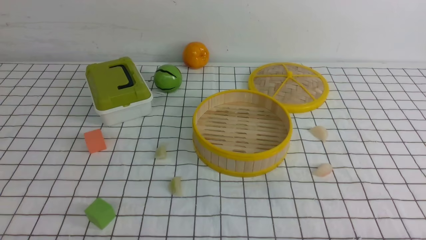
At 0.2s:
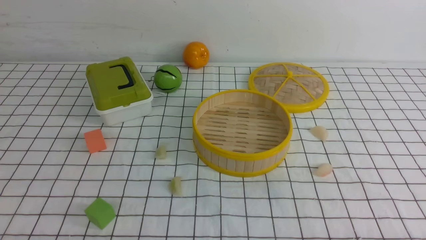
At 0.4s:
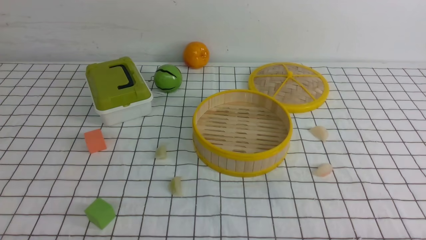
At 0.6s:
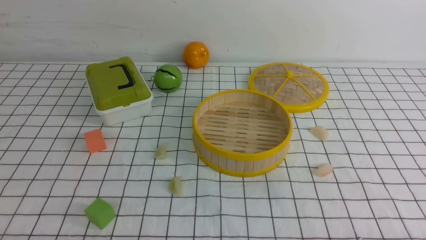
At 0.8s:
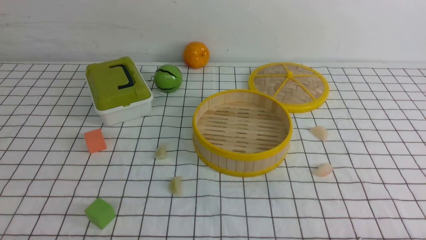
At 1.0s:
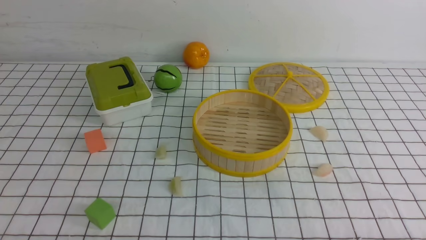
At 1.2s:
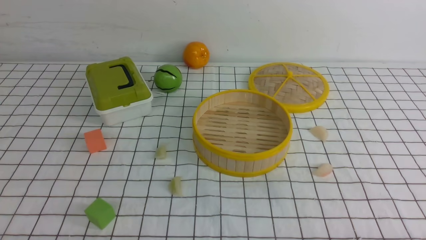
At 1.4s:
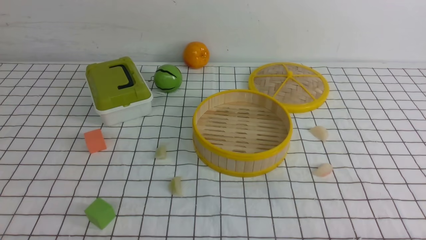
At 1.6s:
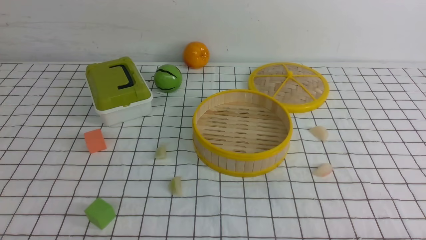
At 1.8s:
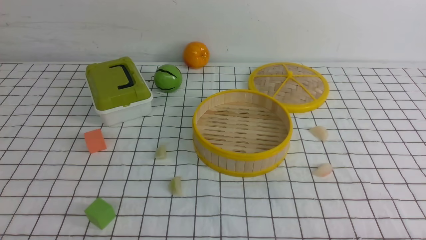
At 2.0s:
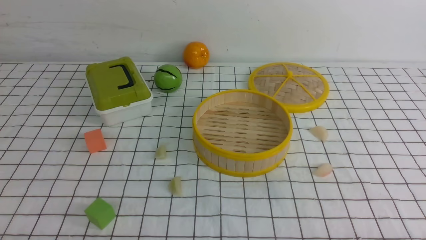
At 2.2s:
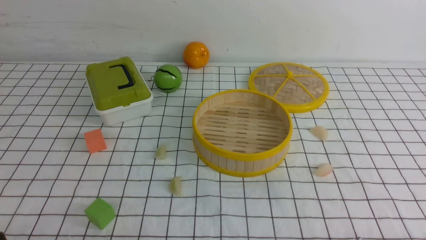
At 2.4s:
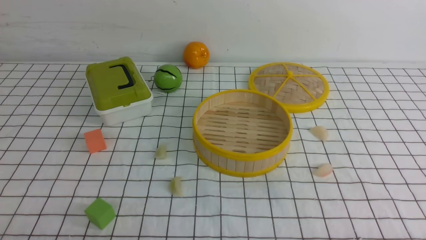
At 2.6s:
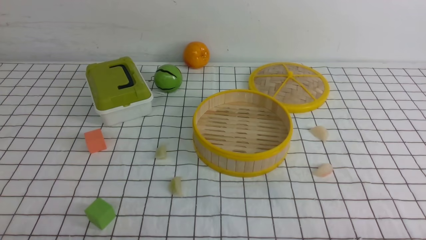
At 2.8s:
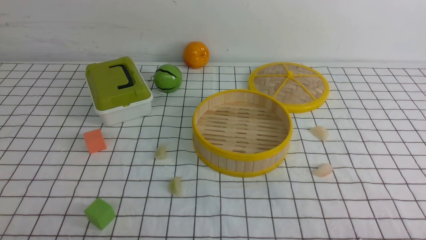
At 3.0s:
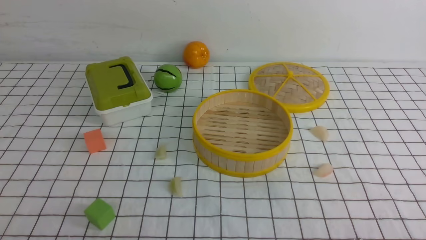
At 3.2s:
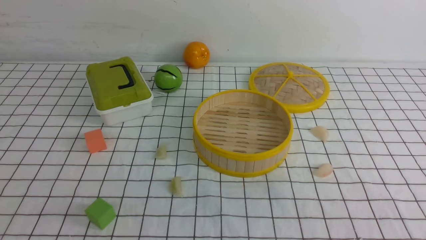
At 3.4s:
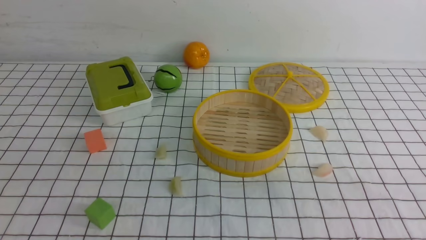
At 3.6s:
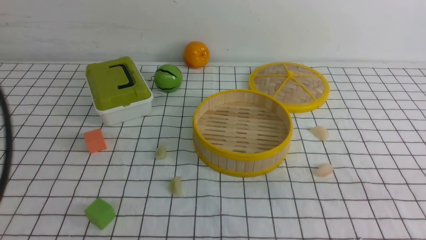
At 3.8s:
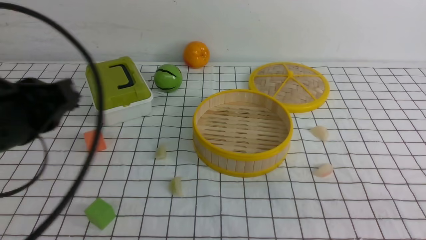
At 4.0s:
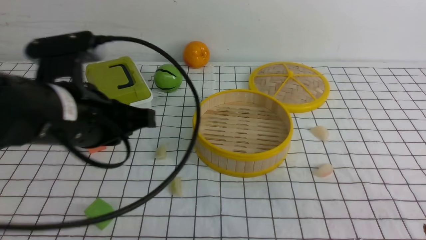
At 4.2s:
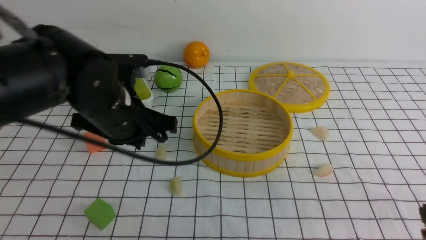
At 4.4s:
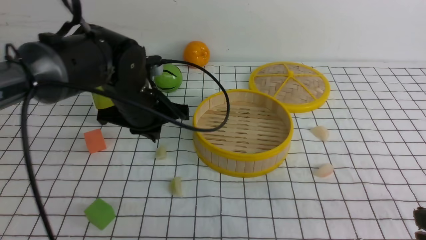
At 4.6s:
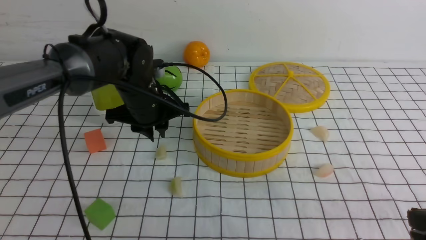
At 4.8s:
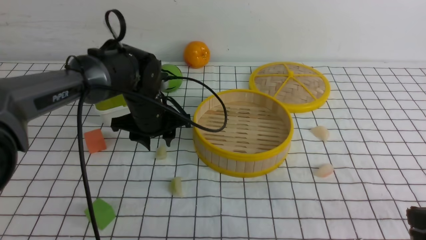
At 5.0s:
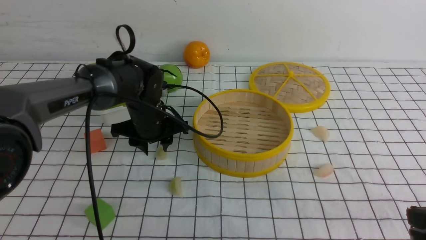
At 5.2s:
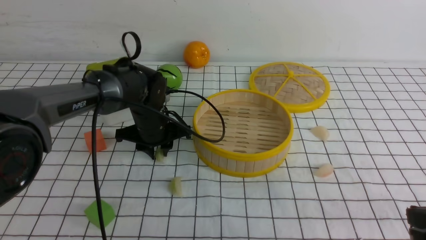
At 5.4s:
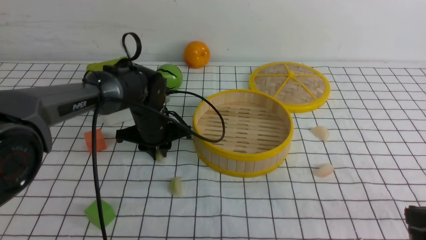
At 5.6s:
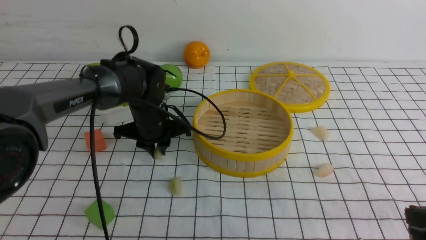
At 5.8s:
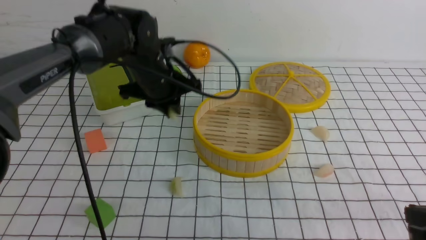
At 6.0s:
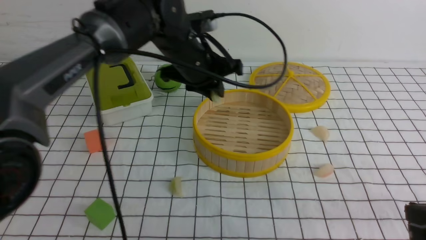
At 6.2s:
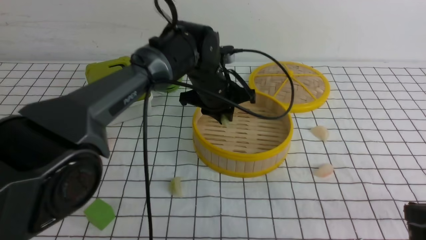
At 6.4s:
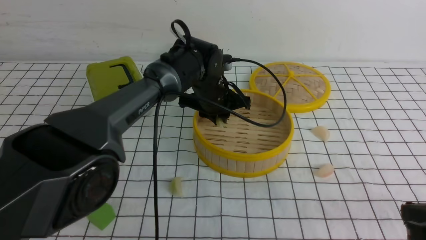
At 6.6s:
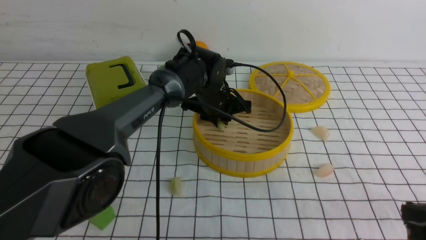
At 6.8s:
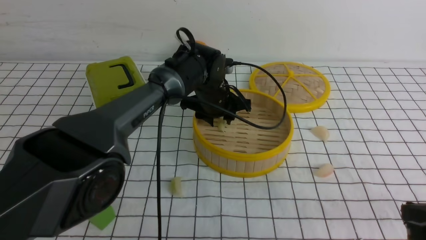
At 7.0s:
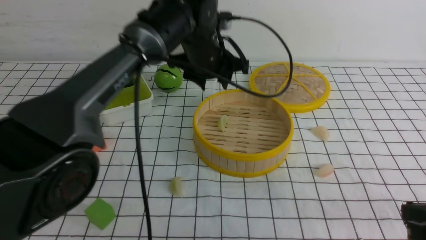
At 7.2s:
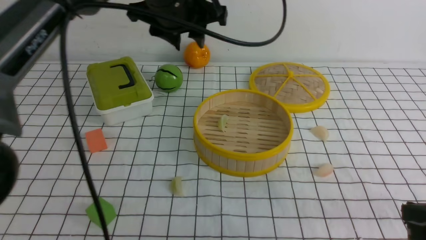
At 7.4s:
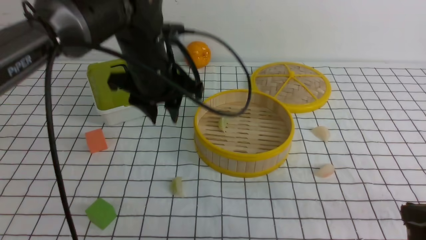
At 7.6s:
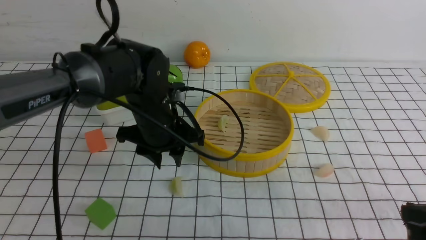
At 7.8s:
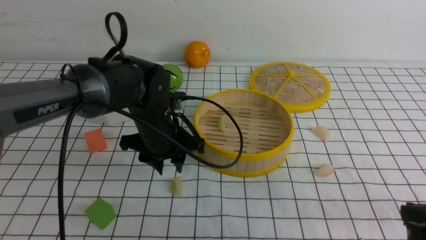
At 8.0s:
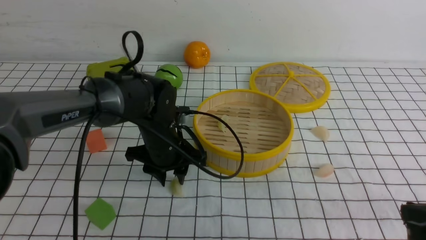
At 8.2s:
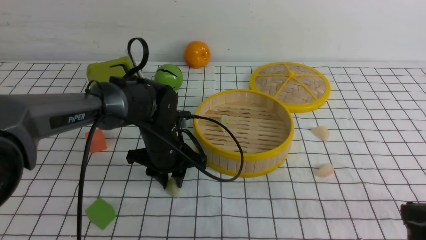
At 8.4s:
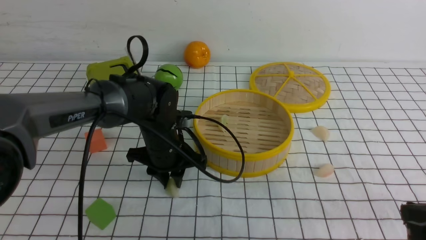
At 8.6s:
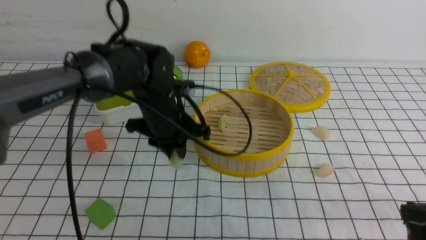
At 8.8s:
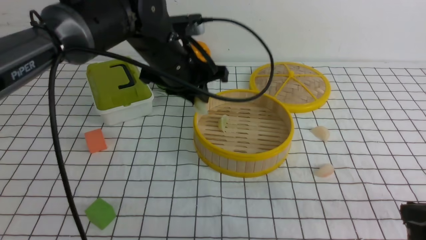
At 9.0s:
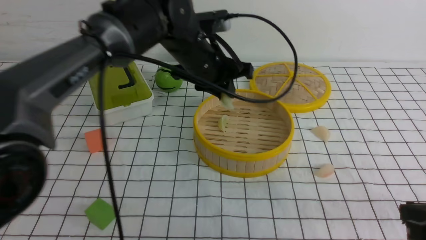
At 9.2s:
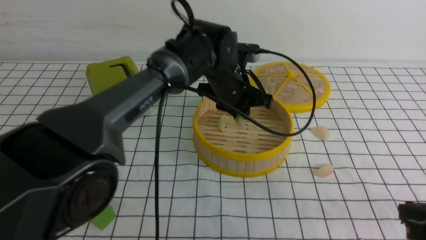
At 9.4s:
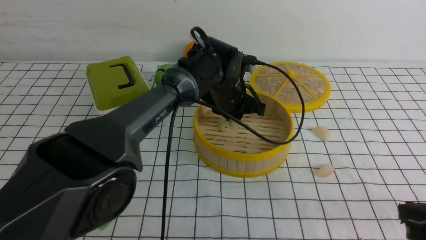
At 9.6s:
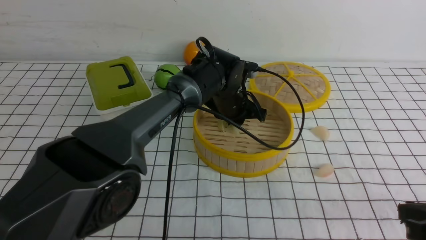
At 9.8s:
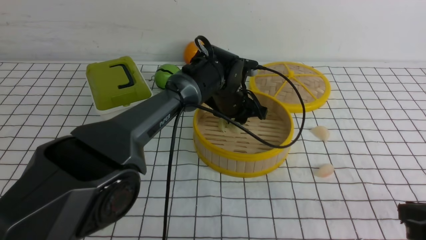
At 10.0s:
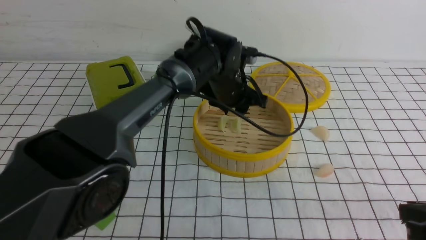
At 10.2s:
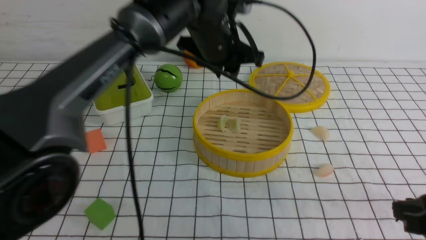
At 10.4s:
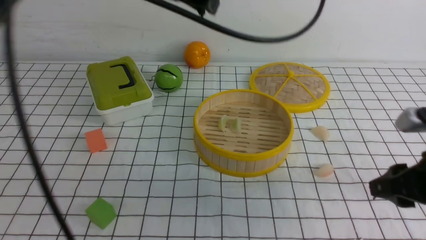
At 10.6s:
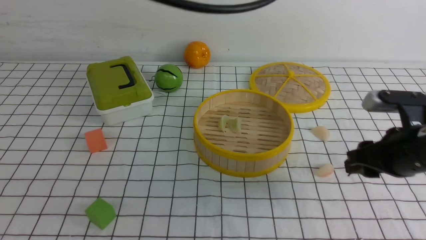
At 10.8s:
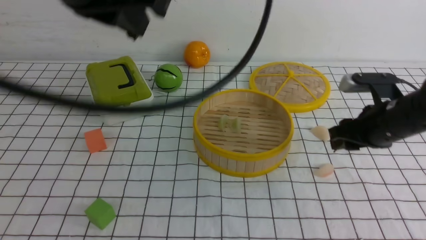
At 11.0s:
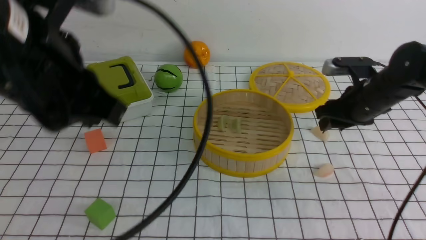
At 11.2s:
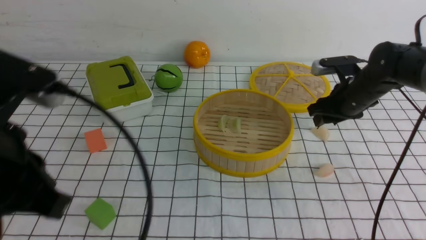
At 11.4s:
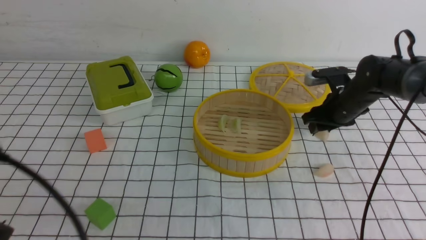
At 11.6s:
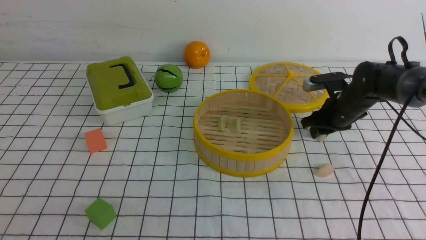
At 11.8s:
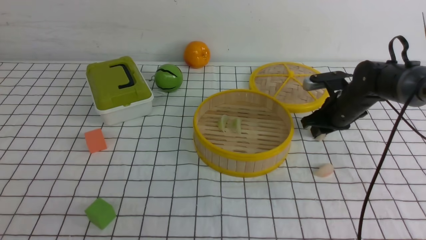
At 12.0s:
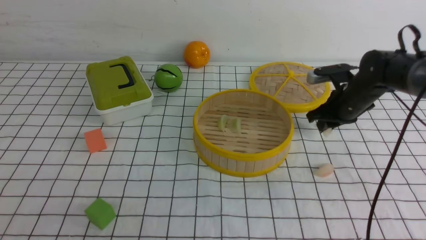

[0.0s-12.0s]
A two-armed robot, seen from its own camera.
Task of the whole recording: put the dumplings into the steamer on the table with the white tablecloth.
Step, 0.0s to 5.8s: use the left arm to grab a dumpling.
Step, 6.0s to 7.0s: use the left arm to put the dumpling into the steamer.
Step, 7.2s to 8.8s: use the left arm to grab a dumpling.
Step, 9.0s to 10.0s: use the left arm to put the dumpling into the steamer.
3.0s to 4.4s: The right gripper heads forward, covering some 10 cm, and closes, while the left gripper goes some 35 cm forward and to the right.
4.4s to 6.0s: The left gripper travels forward and to the right by roughly 10 cm, moves about 10 cm downward and comes back, and opens its fingers.
6.0s to 7.6s: The left gripper moves up and down over some 15 cm, changing direction 2 times, and opens up.
7.6s to 9.0s: The left gripper goes downward and returns, approximately 10 cm each way, and closes its fingers.
9.0s to 10.4s: The right gripper opens. Meanwhile the left gripper shifts approximately 10 cm upward, and opens, then closes once more.
10.4s to 12.0s: The right gripper goes some 30 cm forward. Meanwhile the left gripper heads backward and to the left, covering roughly 40 cm, and closes up.

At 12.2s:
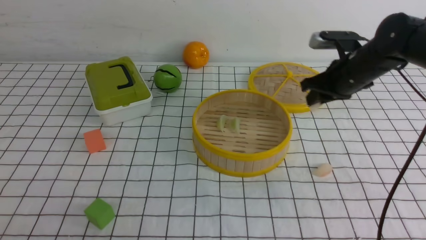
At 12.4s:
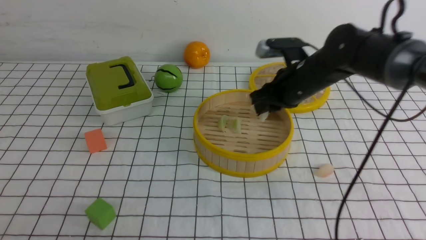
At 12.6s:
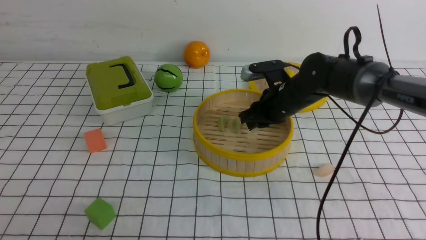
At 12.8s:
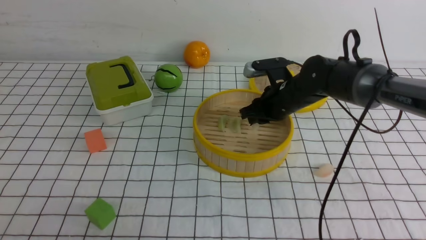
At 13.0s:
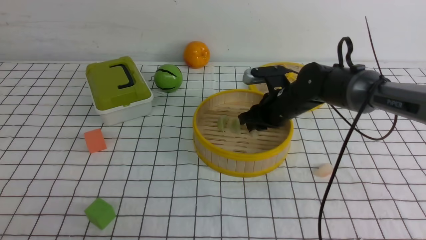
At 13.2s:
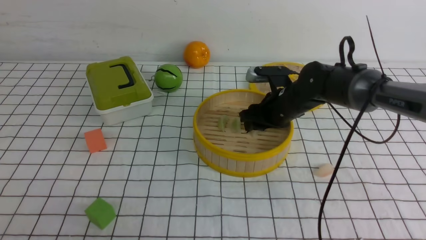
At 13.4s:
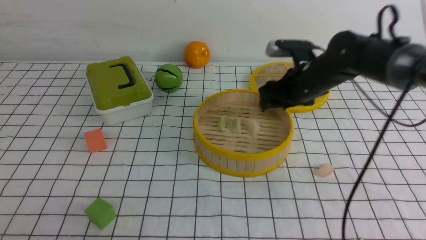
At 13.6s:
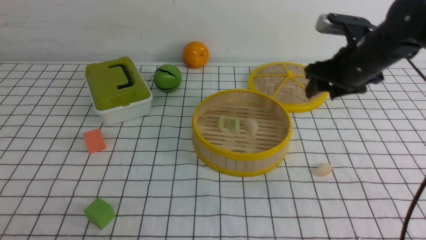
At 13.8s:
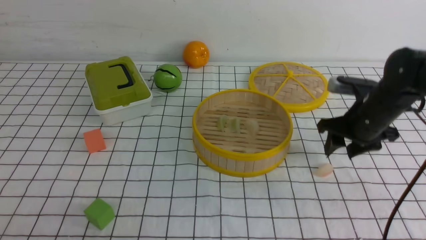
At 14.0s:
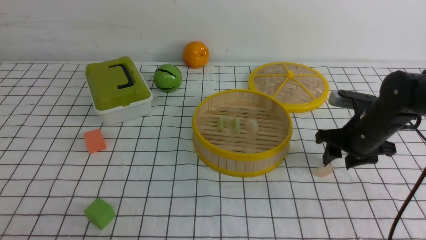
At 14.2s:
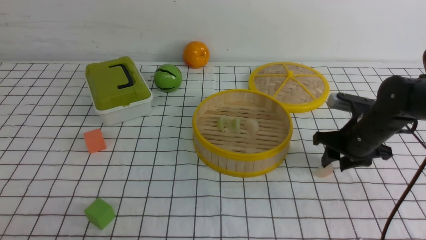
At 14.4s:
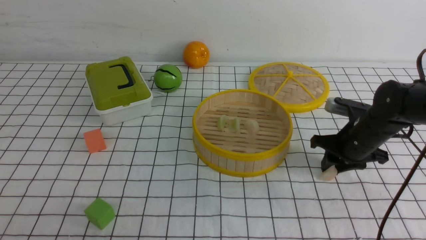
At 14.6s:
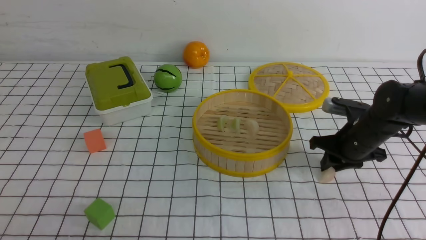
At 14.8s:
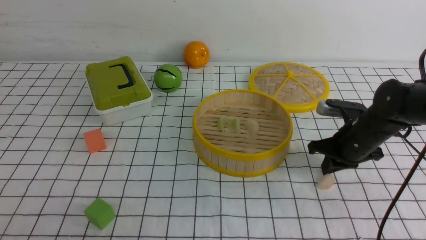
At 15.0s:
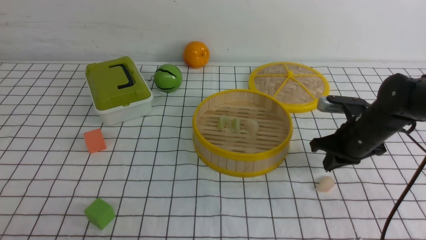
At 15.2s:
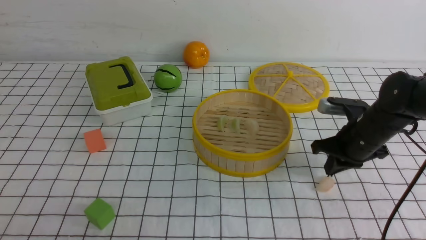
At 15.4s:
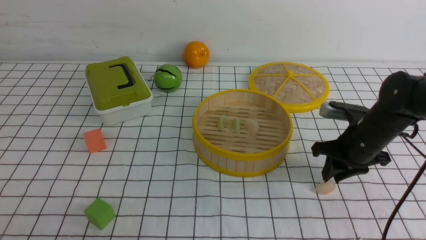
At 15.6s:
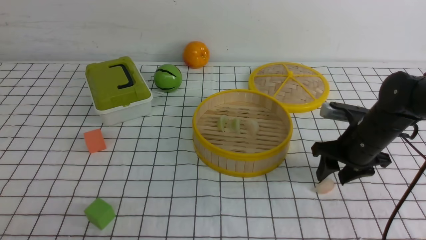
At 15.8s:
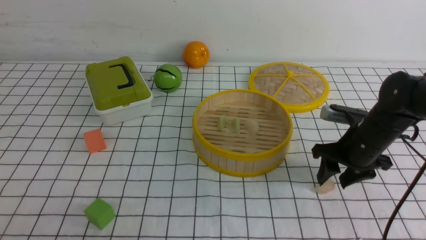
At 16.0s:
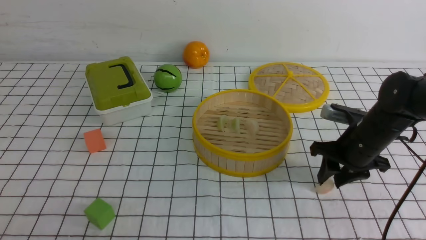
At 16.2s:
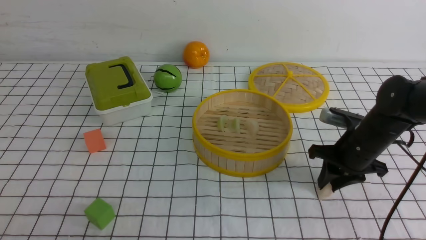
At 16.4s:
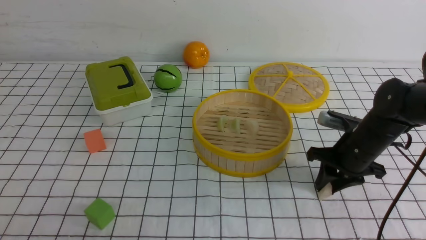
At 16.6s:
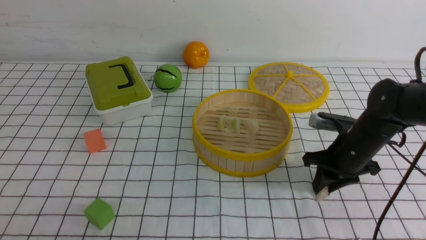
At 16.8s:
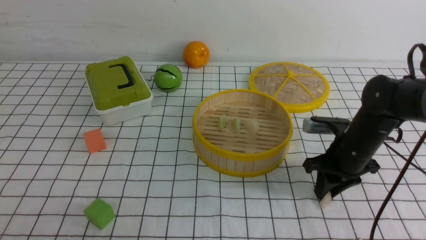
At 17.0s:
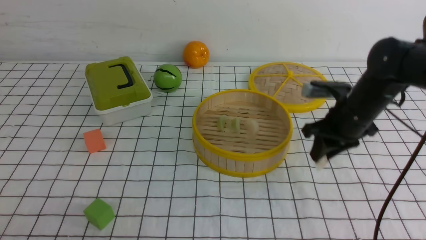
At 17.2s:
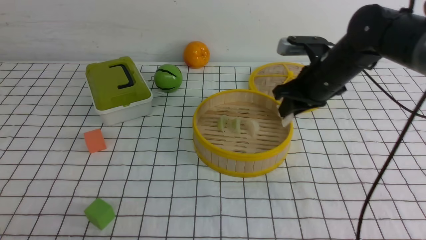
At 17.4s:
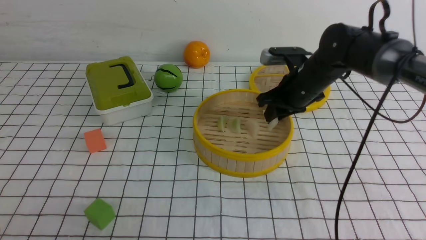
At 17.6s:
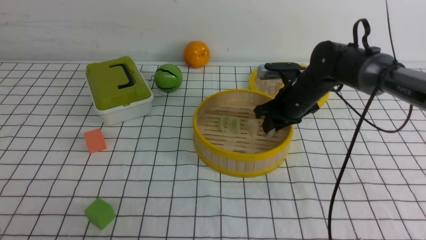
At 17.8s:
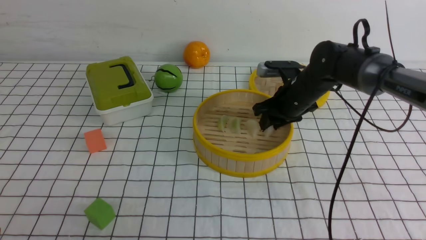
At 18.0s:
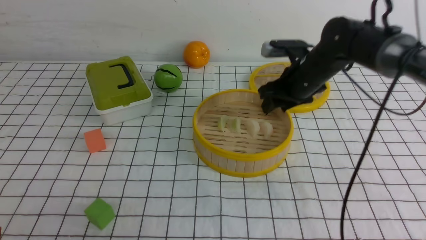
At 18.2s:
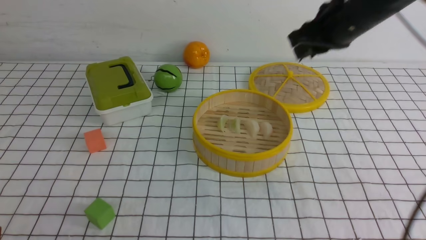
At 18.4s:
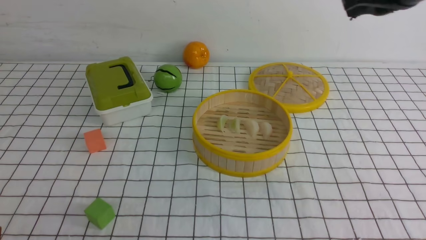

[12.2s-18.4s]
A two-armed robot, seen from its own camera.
Task of the whole recording: put the dumplings into the steamer on the table with the white tablecloth.
Step, 12.4s to 13.8s: use the right arm to put the dumpling into the steamer.
Step, 14.0s to 17.0s: use the right arm to grab a dumpling.
Step, 17.2s to 18.2s: use the right arm to put the dumpling into the steamer.
12.2s to 13.8s: The right gripper goes to the left and returns, roughly 10 cm each way, and opens its fingers.
13.8s to 15.4s: The right gripper shifts roughly 5 cm downward, and closes its fingers.
15.4s to 16.8s: The right gripper opens and closes again.
16.8s to 18.4s: The right gripper shifts about 25 cm upward.
